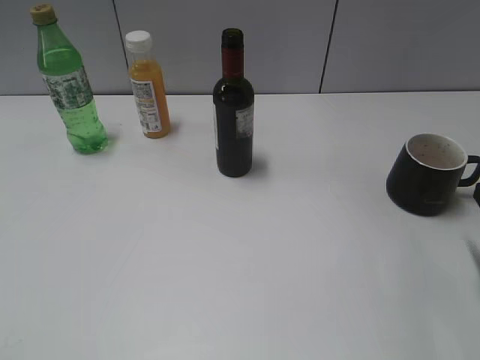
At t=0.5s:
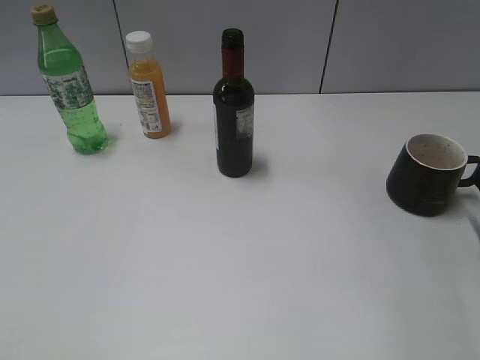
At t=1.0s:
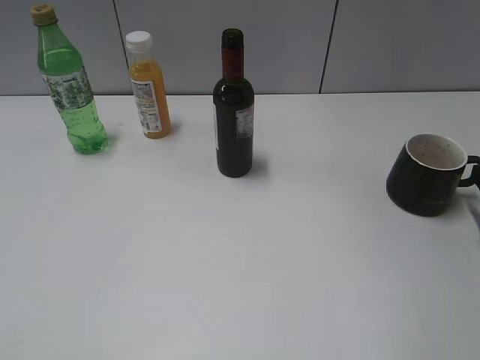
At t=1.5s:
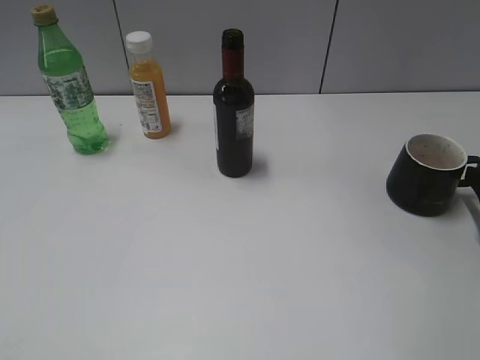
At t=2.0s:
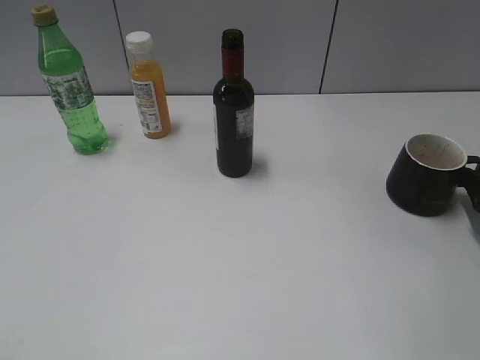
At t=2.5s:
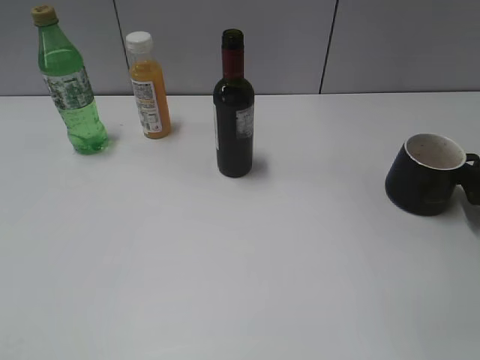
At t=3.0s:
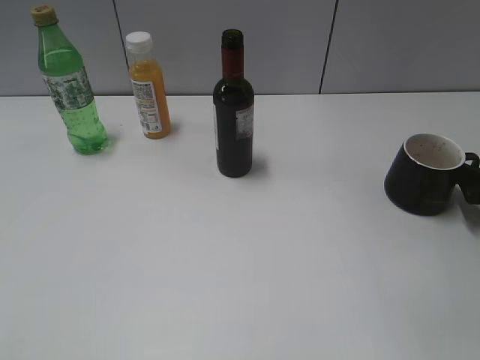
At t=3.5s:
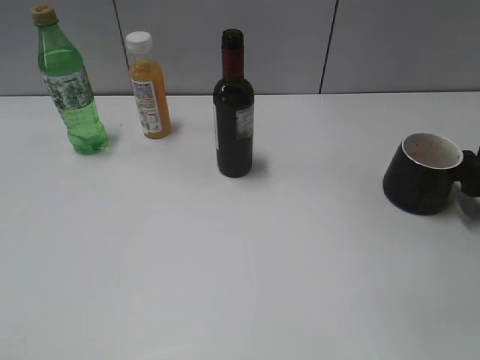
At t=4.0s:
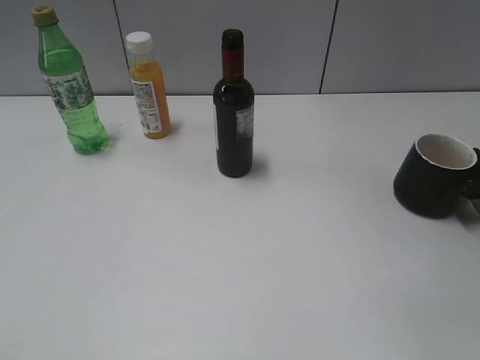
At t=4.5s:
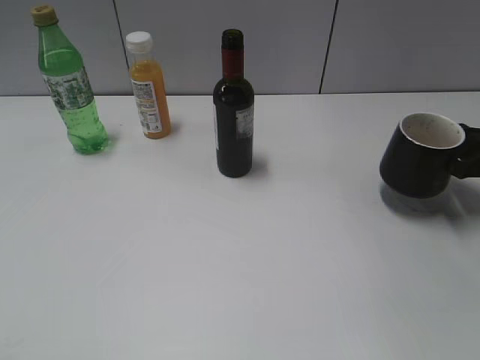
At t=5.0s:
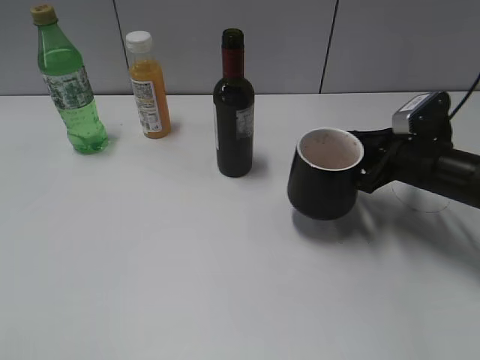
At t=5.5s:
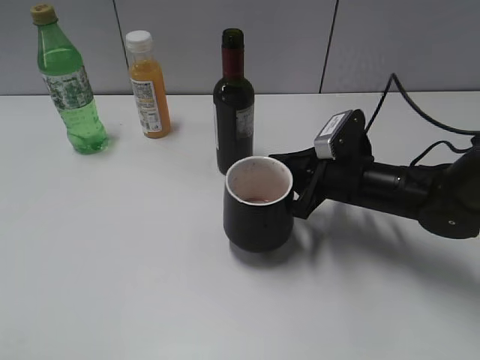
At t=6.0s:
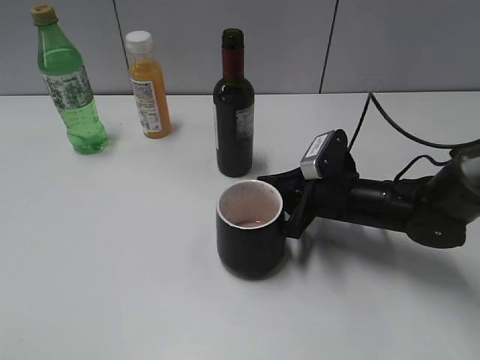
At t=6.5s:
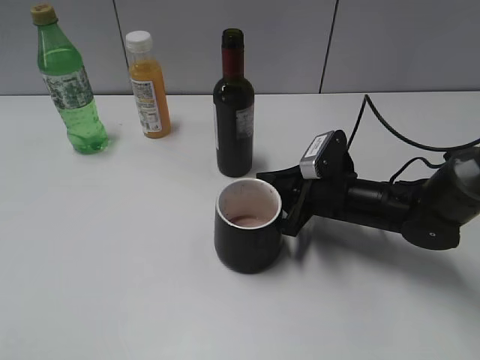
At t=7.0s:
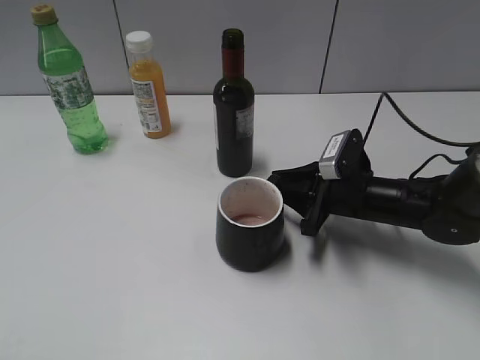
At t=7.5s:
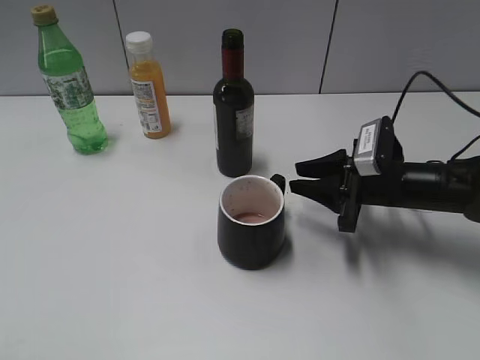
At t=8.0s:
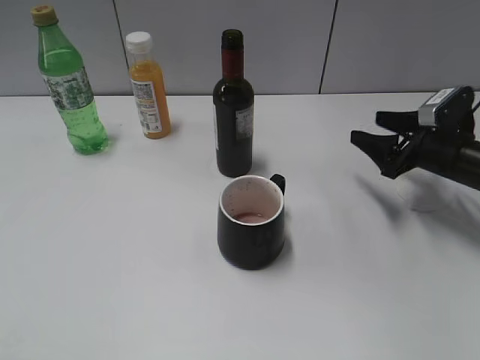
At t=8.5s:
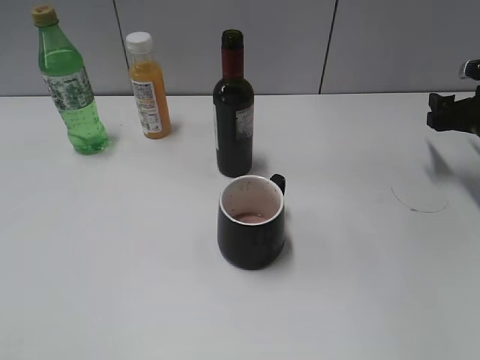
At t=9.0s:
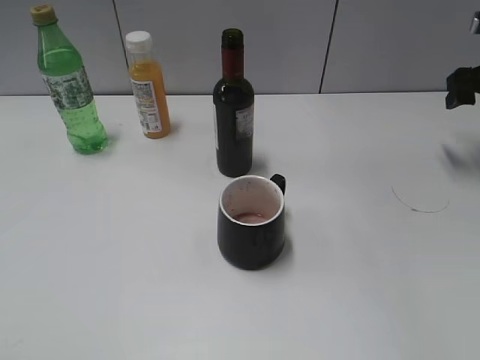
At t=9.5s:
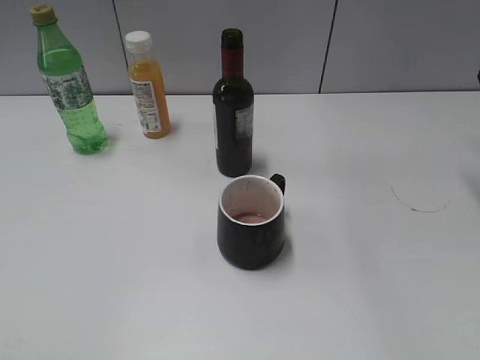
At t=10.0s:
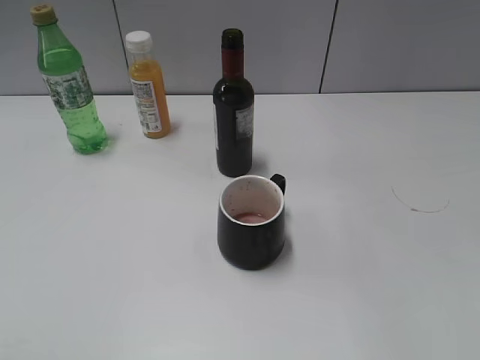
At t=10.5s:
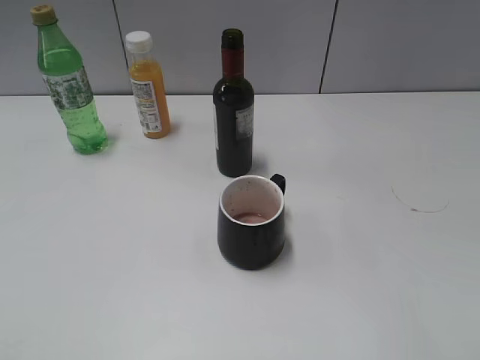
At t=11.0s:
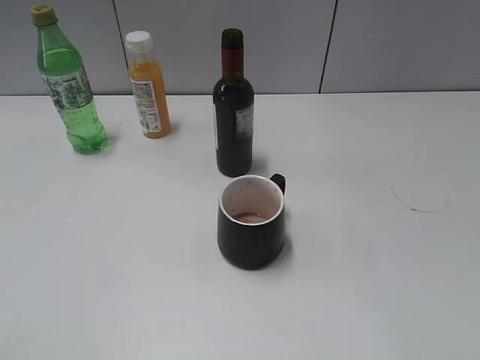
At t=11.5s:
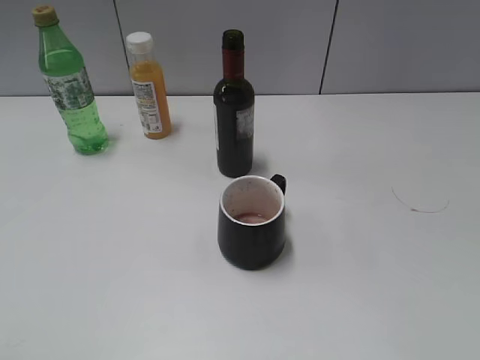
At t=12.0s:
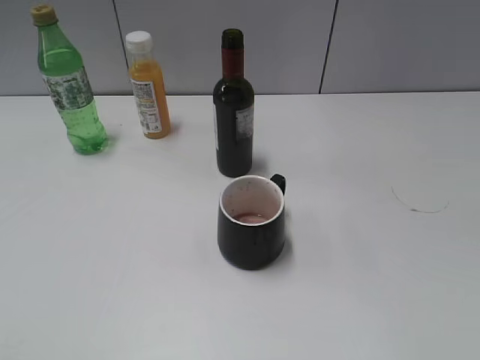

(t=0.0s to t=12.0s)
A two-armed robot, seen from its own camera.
Step, t=0.0s - t=4.0s: Grasp the black cup with right gripper.
Step, t=4.5s - t=7.0s: Place the black cup in the center of view with right gripper.
t=2.0s - t=4.0s: The right gripper closes its fingers.
t=4.0s - t=6.0s: The right gripper heads to the left, covering about 25 cm.
t=6.0s - t=8.0s: The right gripper heads to the right, covering some 15 cm, and opens.
t=8.0s - t=10.0s: The right gripper is displaced upward and backward by roughly 20 cm.

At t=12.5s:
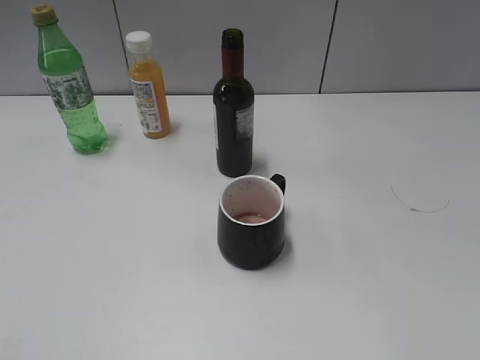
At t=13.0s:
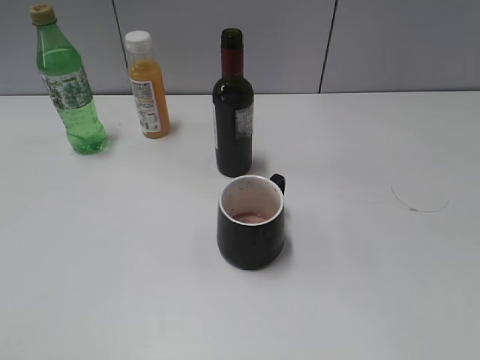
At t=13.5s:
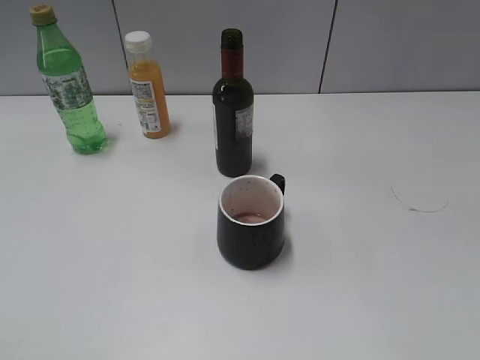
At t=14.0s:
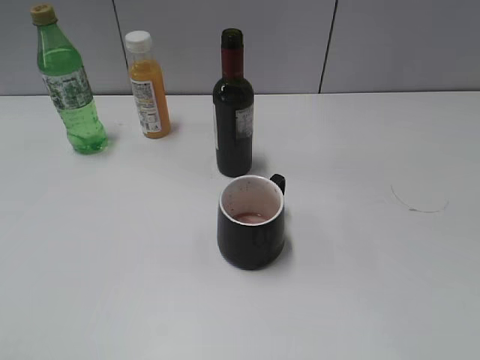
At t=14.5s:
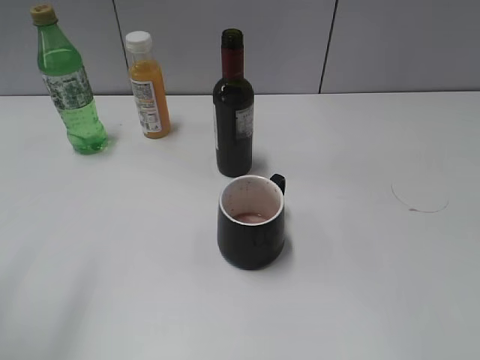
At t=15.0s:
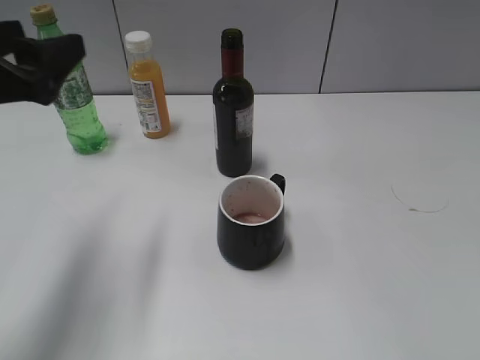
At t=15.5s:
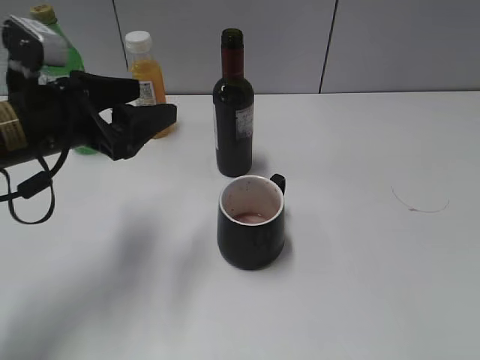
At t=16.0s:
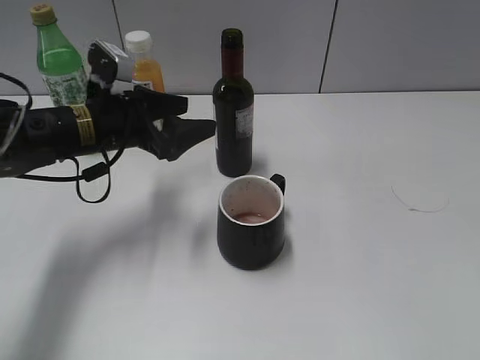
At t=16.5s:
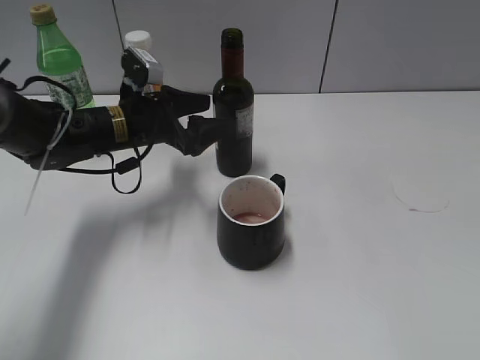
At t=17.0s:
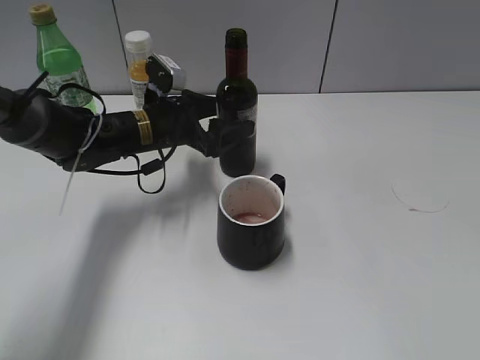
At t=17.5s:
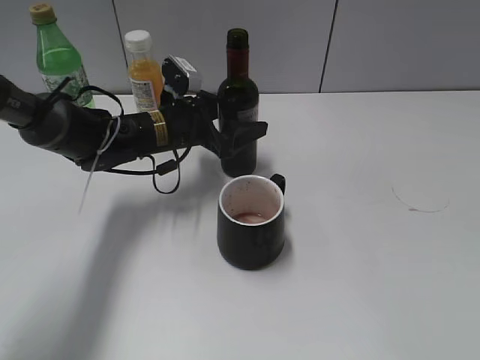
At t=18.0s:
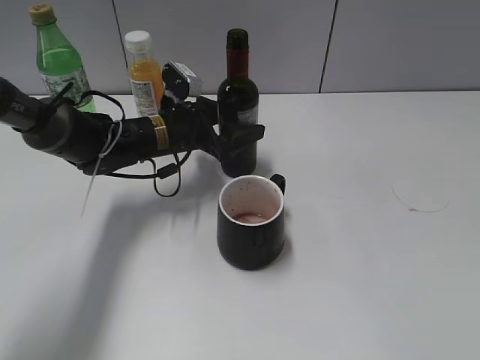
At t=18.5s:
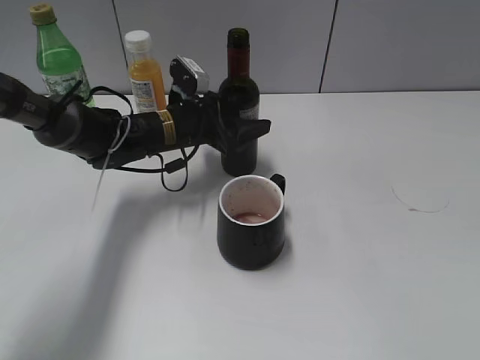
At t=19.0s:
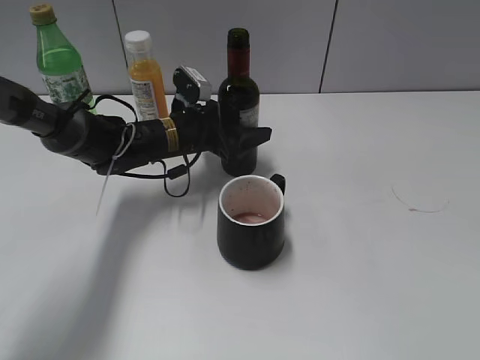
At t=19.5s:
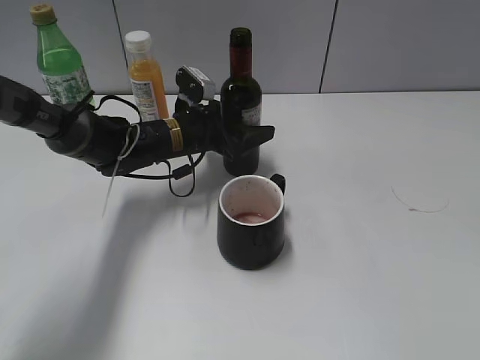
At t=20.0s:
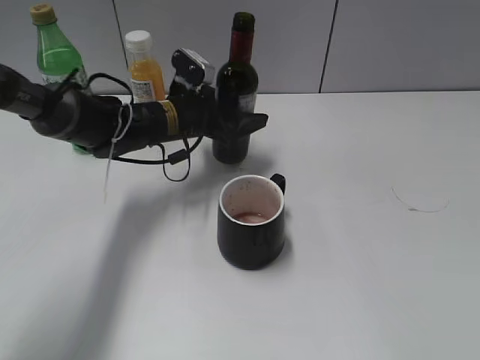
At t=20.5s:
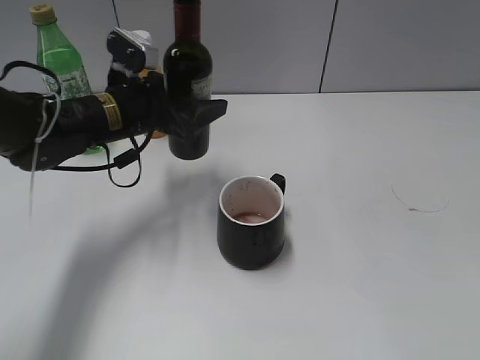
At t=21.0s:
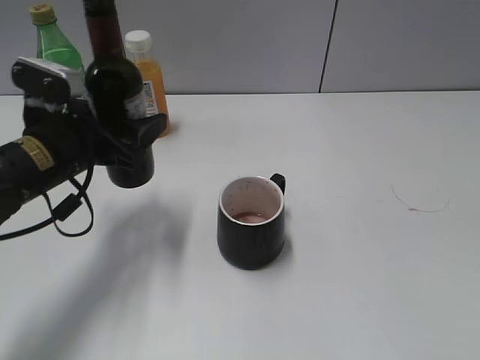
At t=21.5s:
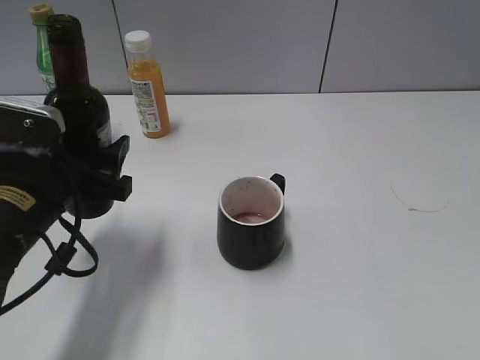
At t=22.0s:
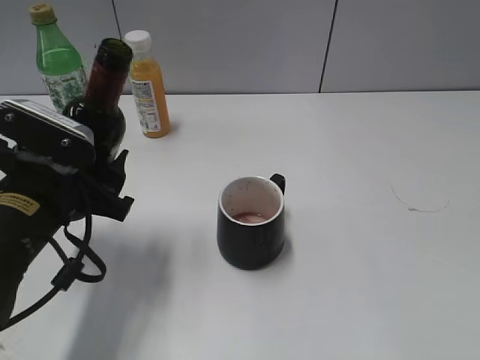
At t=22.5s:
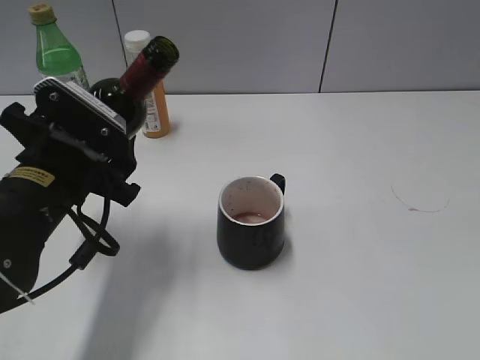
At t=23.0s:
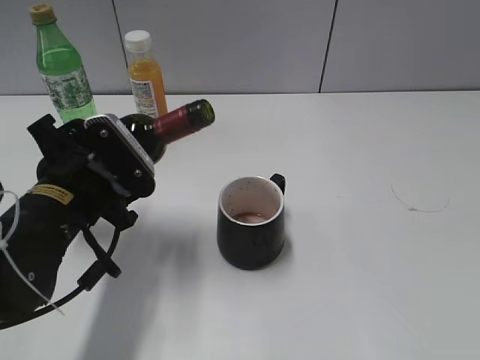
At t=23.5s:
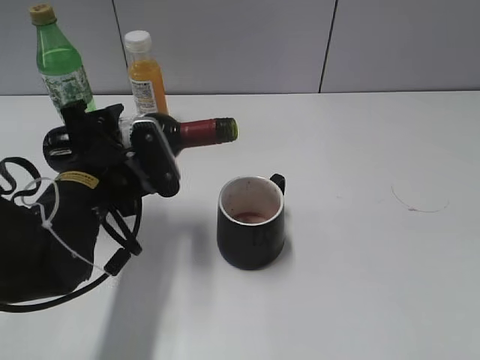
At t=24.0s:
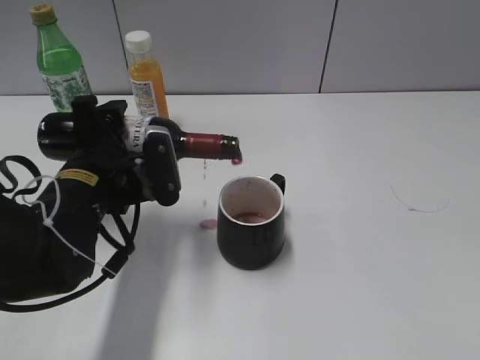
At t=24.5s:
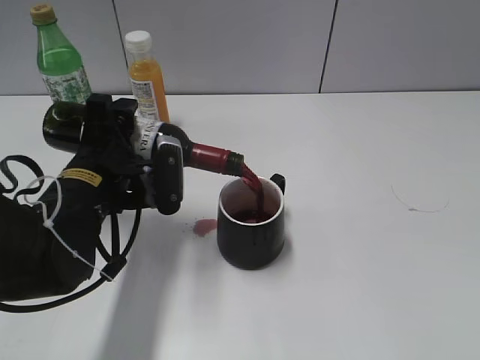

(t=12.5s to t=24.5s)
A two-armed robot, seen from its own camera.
Step, t=12.5s - t=19.5s: Grasp the bottle with red wine with left gripper.
t=14.5s - t=16.5s: The left gripper moves forward, downward and to the right, some 35 cm.
t=16.5s - t=18.5s: The left gripper is displaced to the right by some 5 cm, and closes.
t=18.5s - t=20.5s: The left gripper goes some 5 cm upward.
t=20.5s - t=22.5s: The left gripper heads backward, covering about 15 cm.

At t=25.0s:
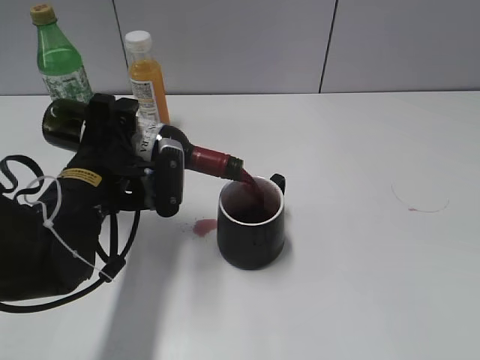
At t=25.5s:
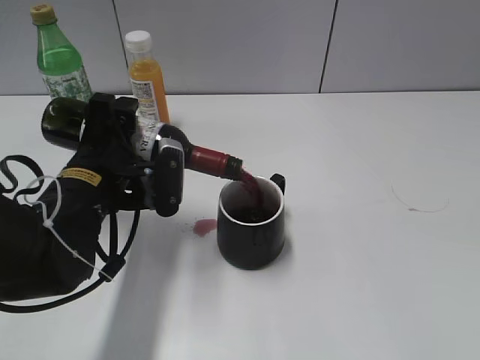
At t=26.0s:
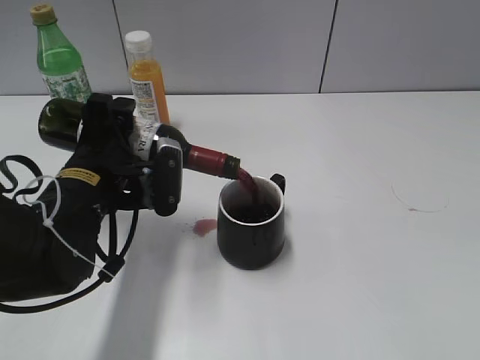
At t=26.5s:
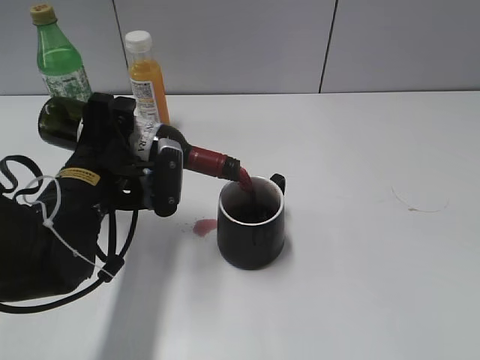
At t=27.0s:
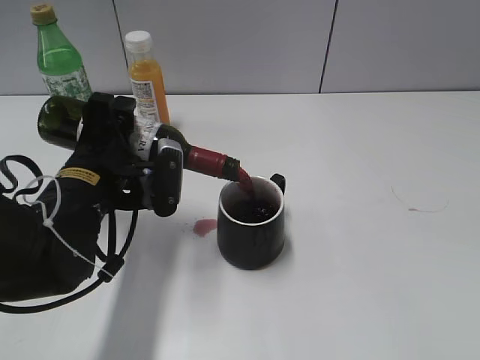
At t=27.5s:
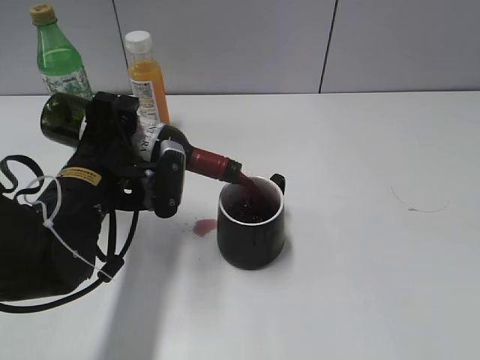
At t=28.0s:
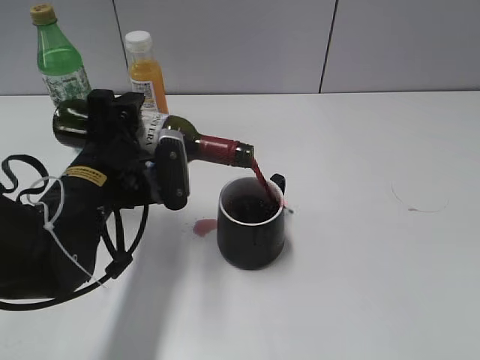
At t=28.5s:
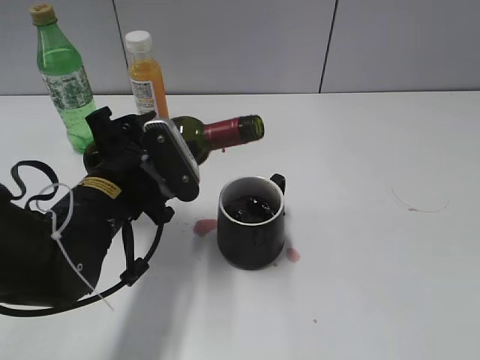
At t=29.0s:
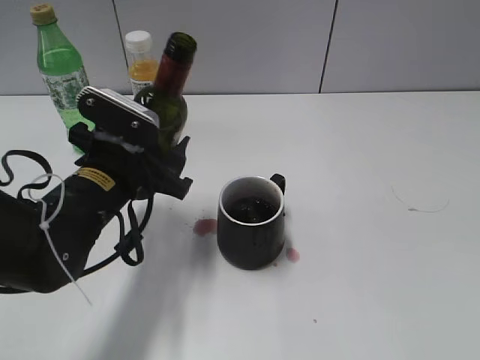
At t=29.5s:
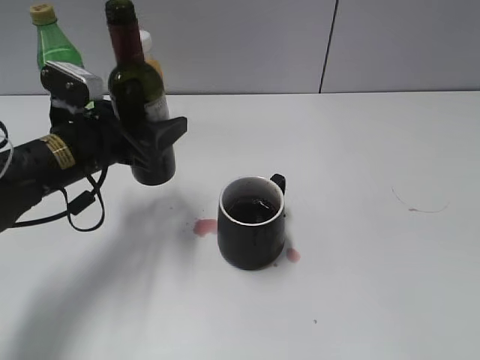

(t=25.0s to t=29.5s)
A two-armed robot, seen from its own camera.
Step, t=25.0s - t=28.5s: Pour the red wine from bottle to cup with left gripper.
t=25.0s - t=27.0s: The two grippers keep their place.
t=27.0s - t=29.5s: The left gripper travels forward by about 5 cm.
